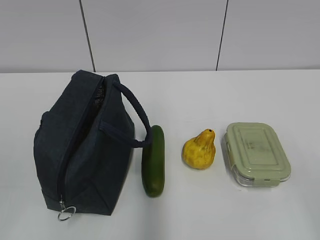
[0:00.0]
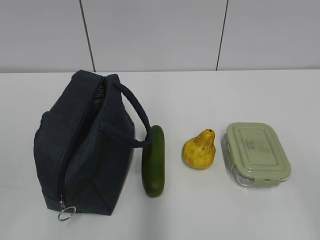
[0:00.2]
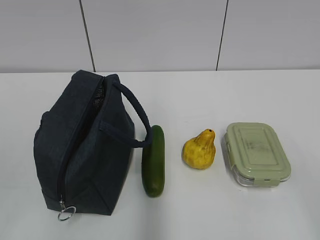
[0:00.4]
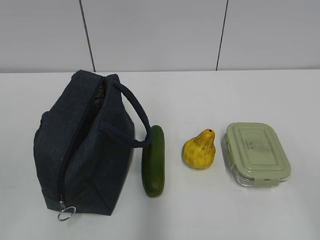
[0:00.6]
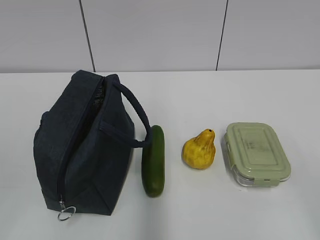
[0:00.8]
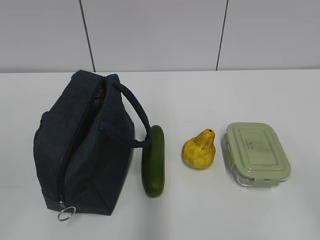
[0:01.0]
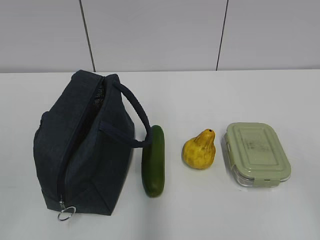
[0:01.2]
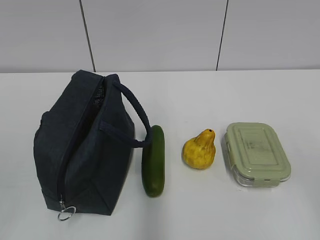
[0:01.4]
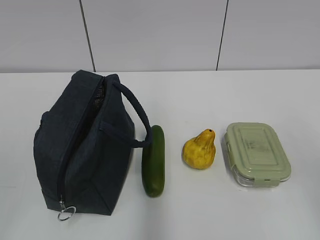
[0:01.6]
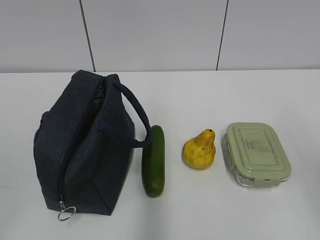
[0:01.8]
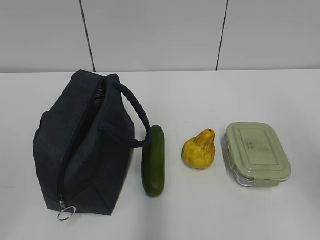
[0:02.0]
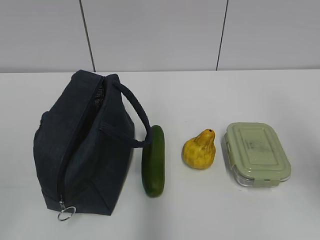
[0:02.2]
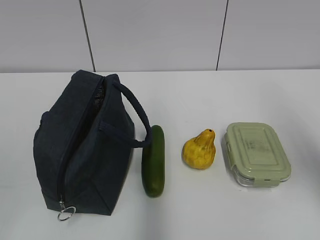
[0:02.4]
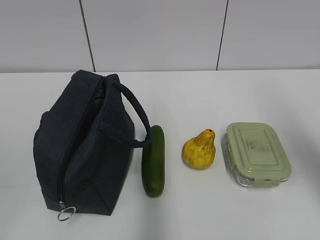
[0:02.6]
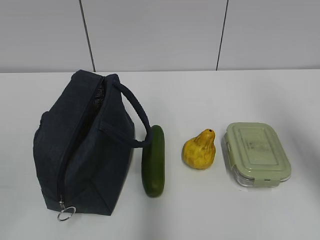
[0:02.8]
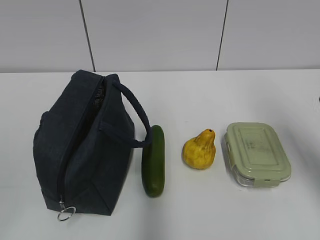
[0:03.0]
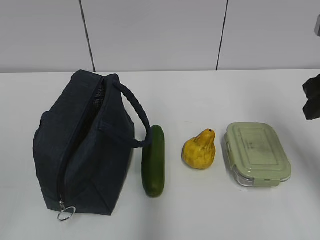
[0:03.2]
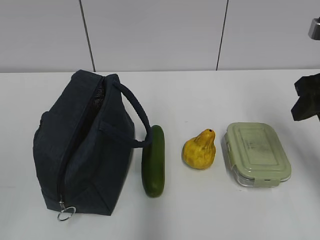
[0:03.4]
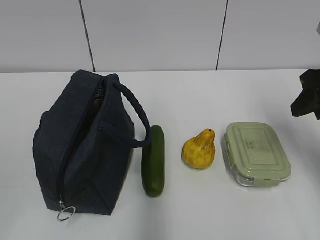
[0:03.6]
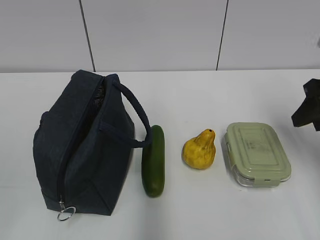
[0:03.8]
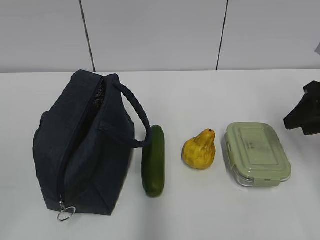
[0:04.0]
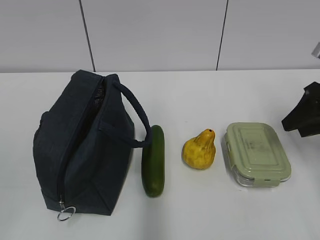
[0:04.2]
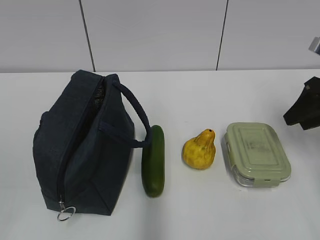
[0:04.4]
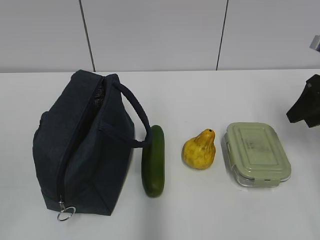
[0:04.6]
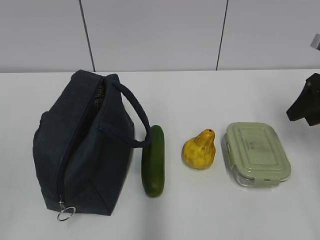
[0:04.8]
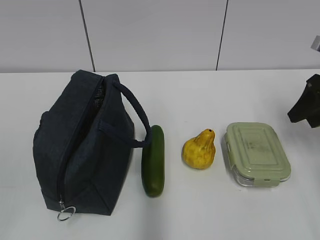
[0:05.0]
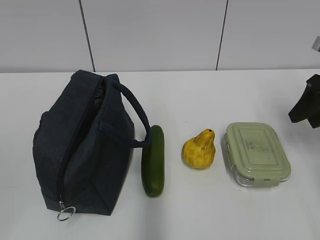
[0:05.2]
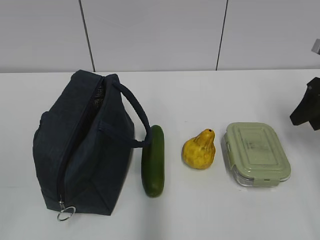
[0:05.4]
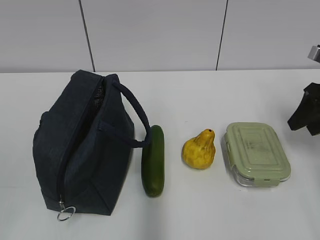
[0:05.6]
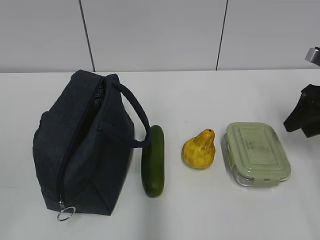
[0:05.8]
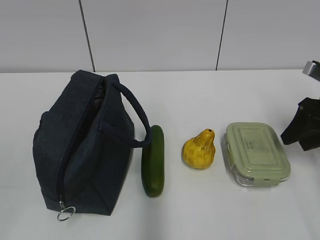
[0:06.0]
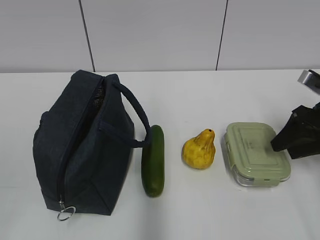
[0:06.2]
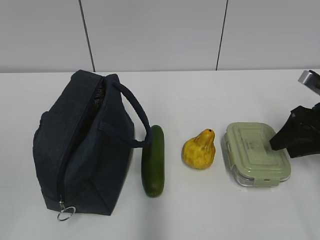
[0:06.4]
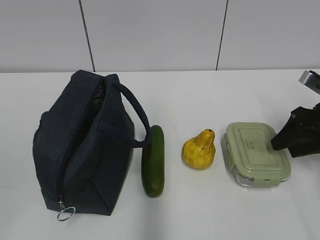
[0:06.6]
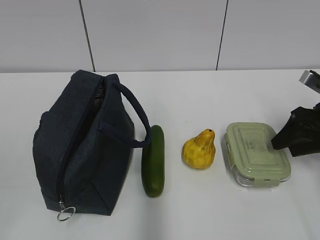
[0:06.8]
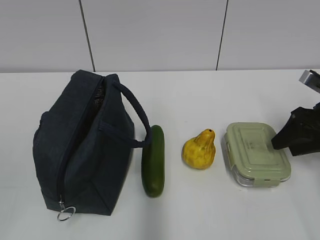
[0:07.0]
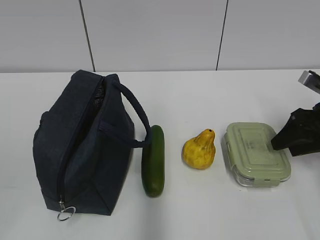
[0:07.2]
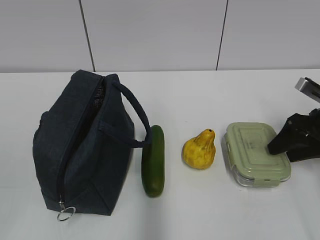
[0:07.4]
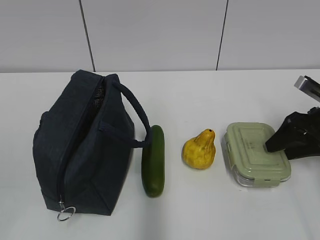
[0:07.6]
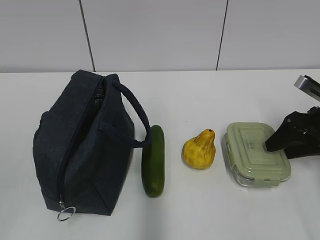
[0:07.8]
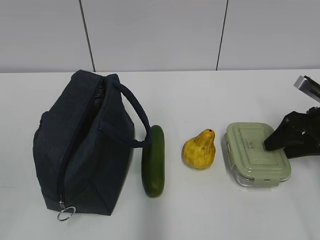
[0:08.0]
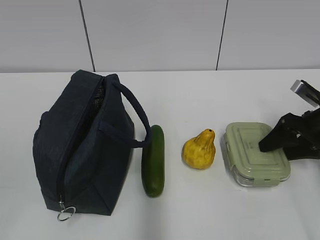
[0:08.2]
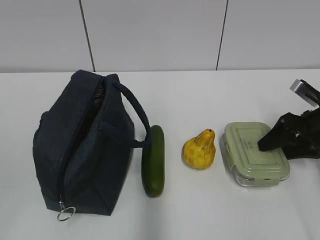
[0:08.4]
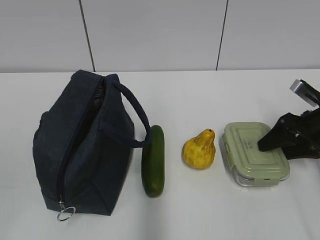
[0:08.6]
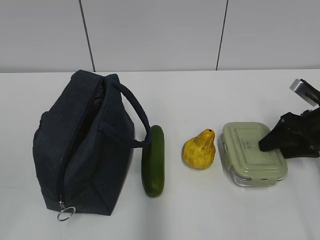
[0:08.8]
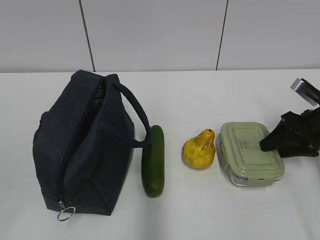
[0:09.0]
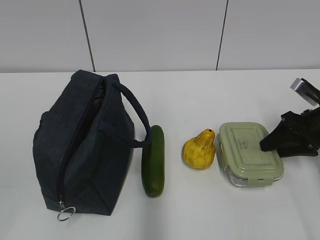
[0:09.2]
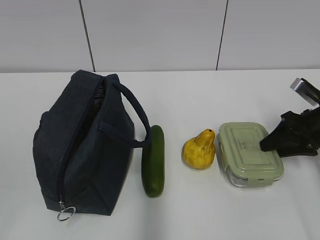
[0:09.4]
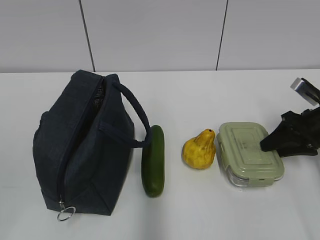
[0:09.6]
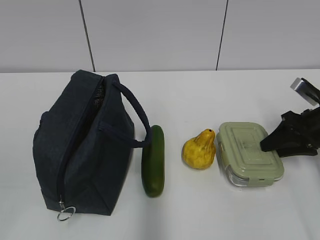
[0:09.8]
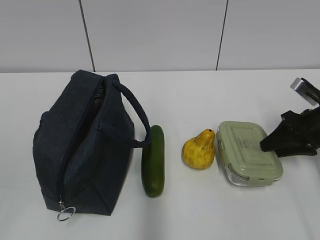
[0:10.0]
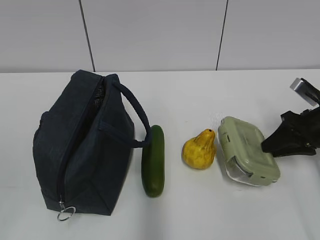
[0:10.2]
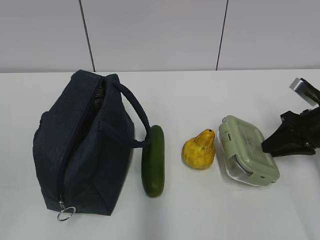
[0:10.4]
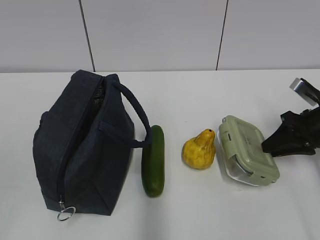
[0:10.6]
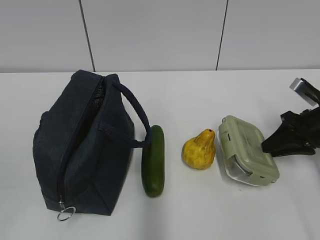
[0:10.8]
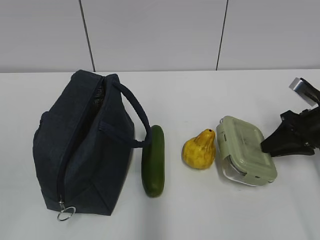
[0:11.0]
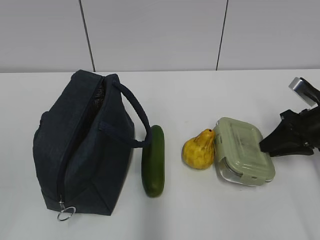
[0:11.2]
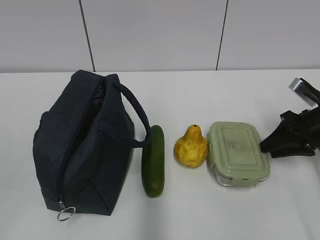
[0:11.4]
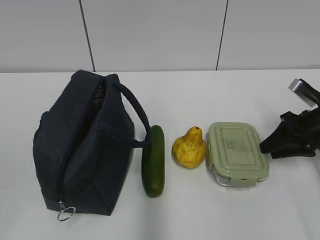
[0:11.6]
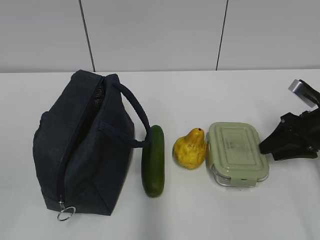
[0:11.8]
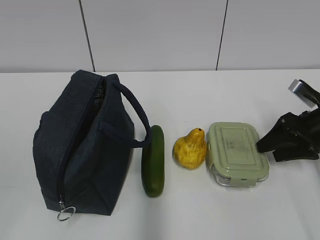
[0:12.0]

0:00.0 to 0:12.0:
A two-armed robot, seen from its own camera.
0:01.6 to 0:03.0: The right gripper travels forward by about 20 cm.
0:03.0 to 0:04.4: The right gripper is displaced downward, forward and to the right by some 10 cm.
0:04.4 to 0:06.0: The grippers move only a little.
0:06.0 to 0:09.0: The grippers stay close to where they were, moving slightly.
0:09.0 to 0:10.4: Both grippers stay about where they are.
0:10.4 to 0:12.0: The right gripper opens.

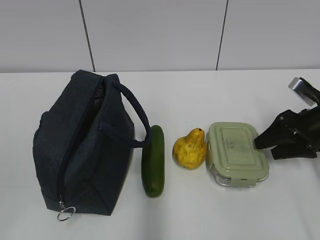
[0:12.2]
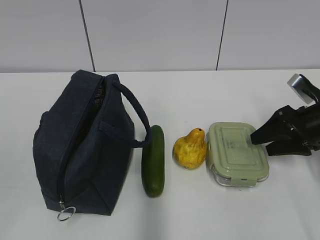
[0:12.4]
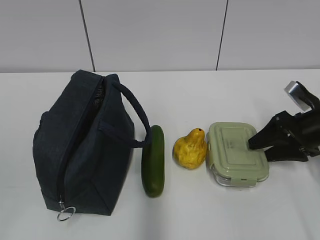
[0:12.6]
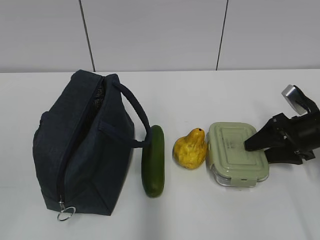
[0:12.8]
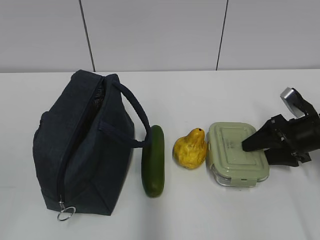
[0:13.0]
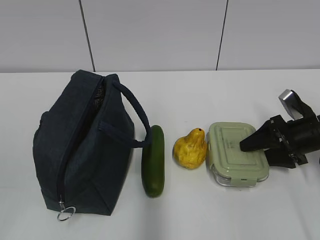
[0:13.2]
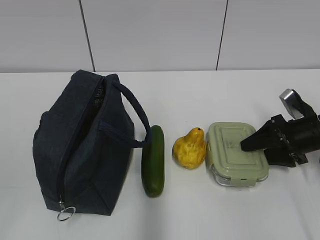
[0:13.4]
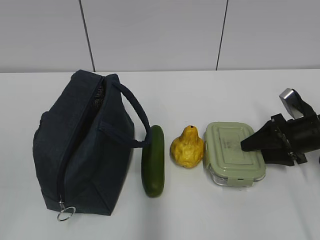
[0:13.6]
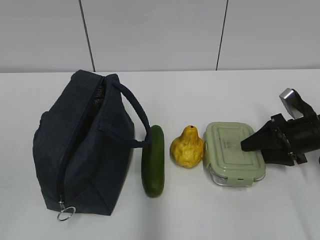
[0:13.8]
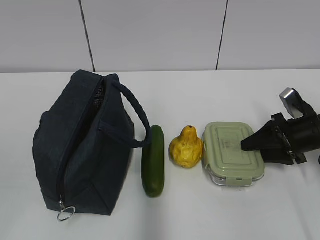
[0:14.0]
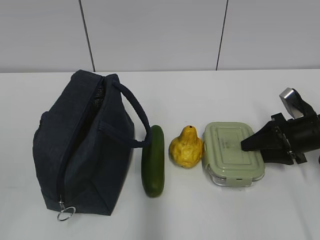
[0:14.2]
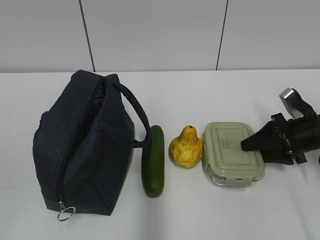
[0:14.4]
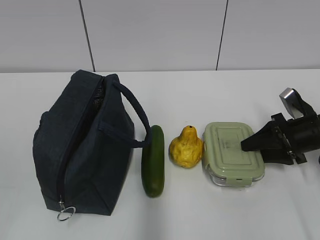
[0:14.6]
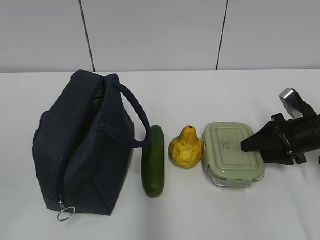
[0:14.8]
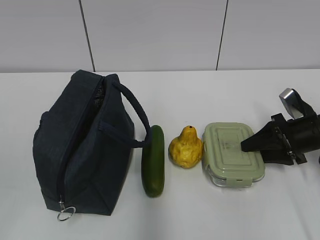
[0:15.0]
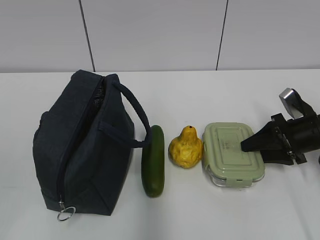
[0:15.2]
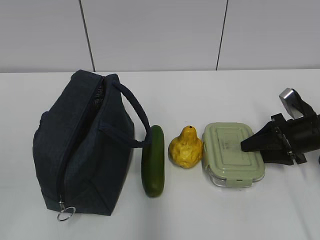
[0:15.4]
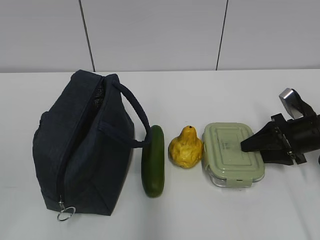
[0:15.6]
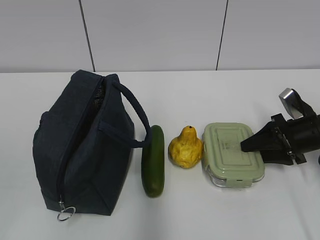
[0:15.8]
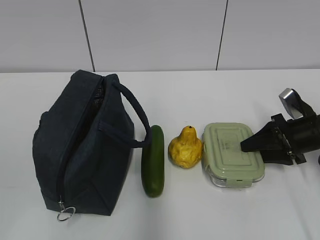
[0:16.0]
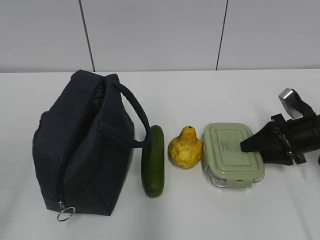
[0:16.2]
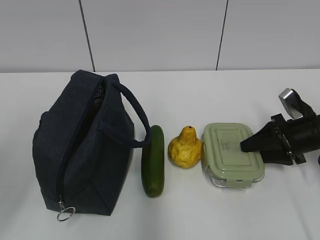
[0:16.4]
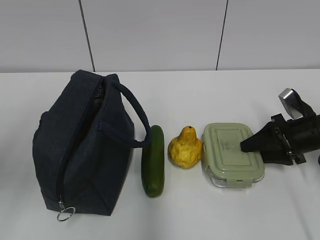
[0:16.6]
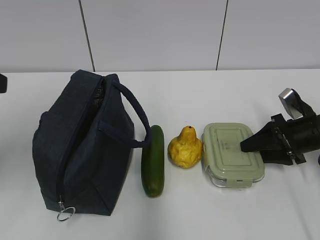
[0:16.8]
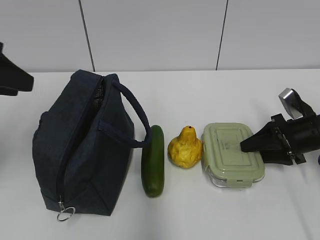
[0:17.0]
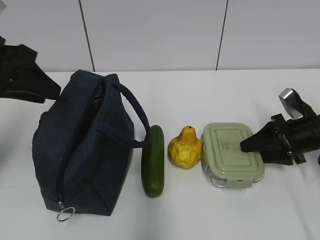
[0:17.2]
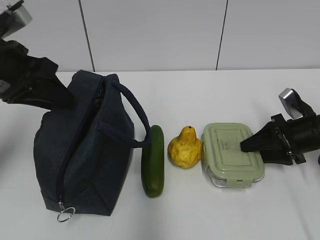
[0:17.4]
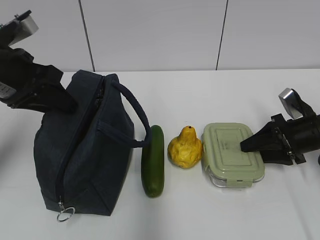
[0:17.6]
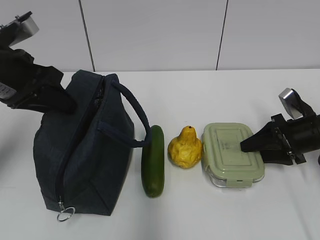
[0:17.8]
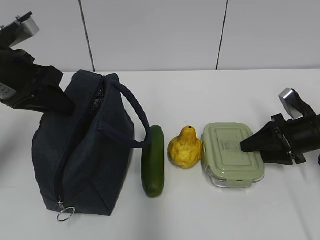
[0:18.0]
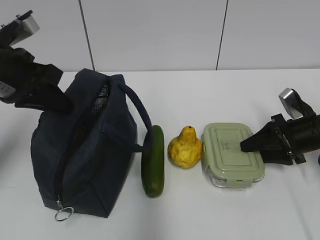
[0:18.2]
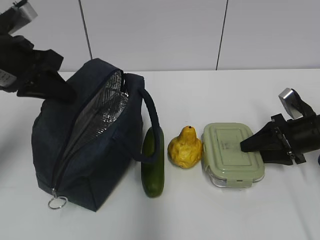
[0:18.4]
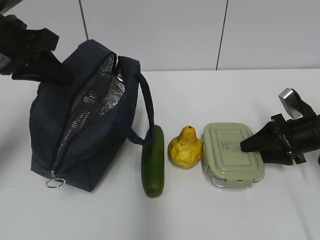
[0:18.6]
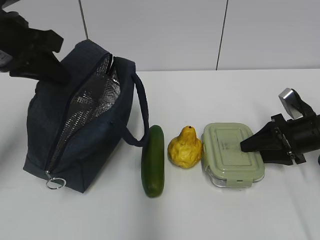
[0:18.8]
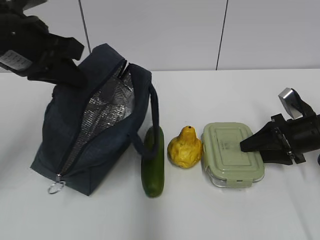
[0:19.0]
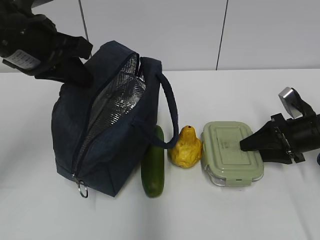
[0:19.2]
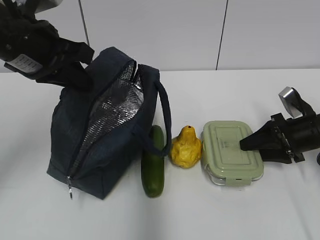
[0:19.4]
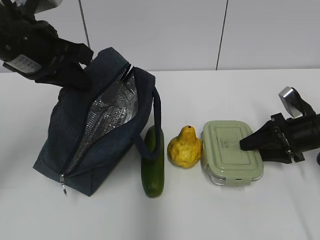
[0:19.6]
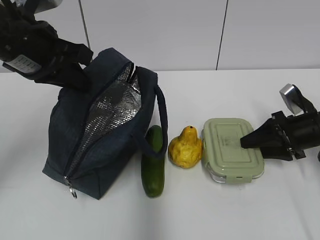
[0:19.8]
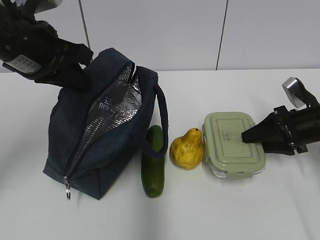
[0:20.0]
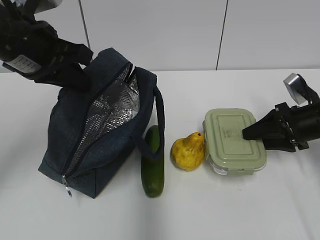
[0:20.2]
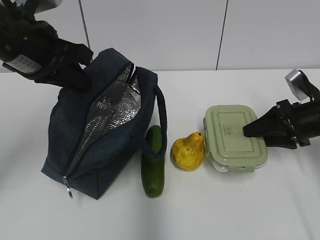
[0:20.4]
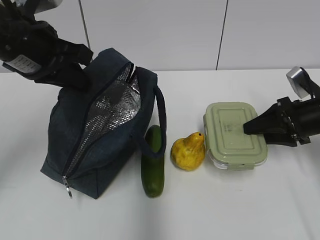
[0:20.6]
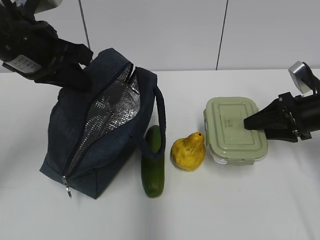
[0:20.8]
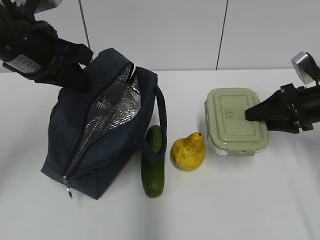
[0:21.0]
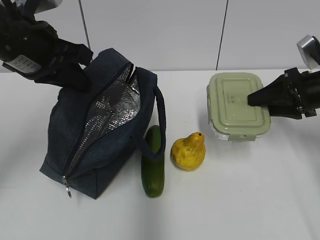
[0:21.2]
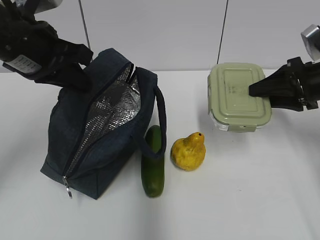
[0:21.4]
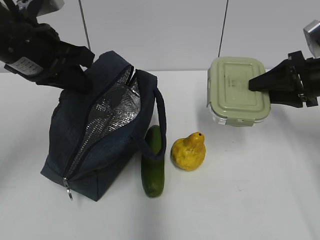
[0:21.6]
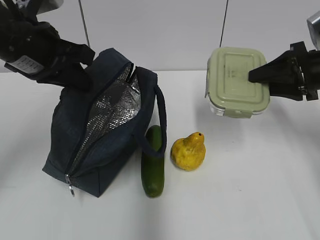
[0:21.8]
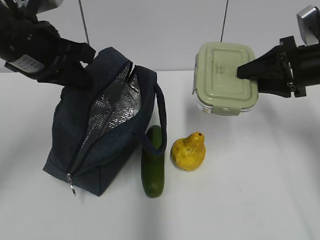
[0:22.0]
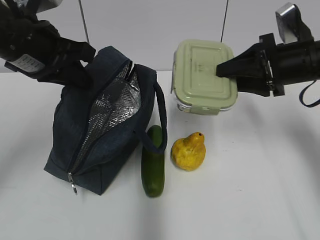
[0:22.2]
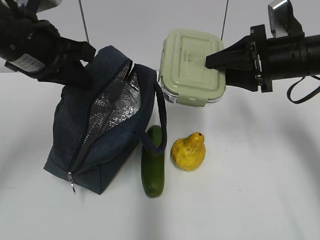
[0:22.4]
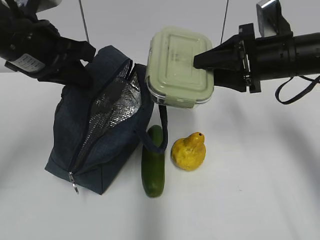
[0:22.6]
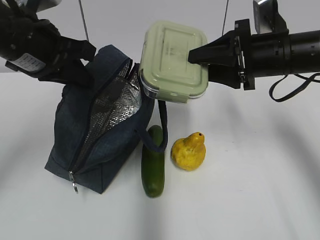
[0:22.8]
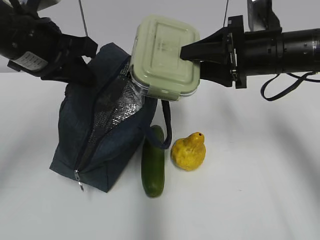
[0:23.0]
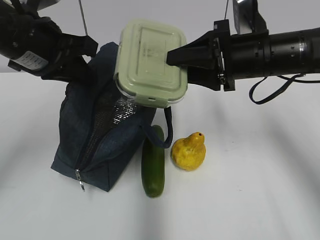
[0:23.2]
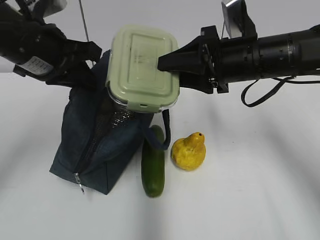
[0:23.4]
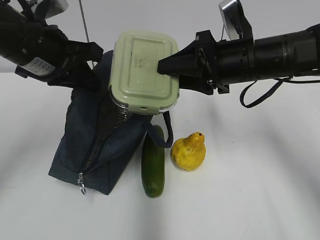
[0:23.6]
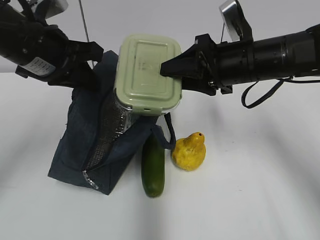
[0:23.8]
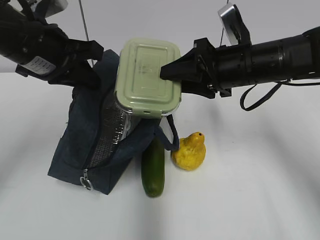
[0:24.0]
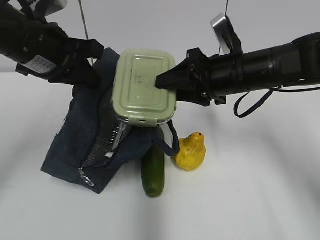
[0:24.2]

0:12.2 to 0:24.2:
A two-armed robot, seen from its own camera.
Step, 0:12.2 to 0:15.0: Grab the lunch box with your right hand.
Step, 0:15.2 to 0:24.0: Grab the lunch bag with your left hand.
0:12.2 to 0:13.8: The grippers stay close to where they were, moving slightly.
0:13.8 to 0:15.2: Neither gripper changes place.
0:15.2 to 0:16.6: The left gripper heads forward, covering approximately 15 cm.
0:16.6 to 0:18.2: The left gripper travels forward by some 15 cm, and closes its fingers.
0:18.2 to 0:19.8: The left gripper changes place by approximately 5 cm.
0:19.8 to 0:21.2: The right gripper goes some 10 cm upward.
0:21.2 to 0:22.6: The right gripper shifts approximately 10 cm to the left and upward.
0:22.6 to 0:24.2: The right gripper shifts roughly 5 cm to the left.
